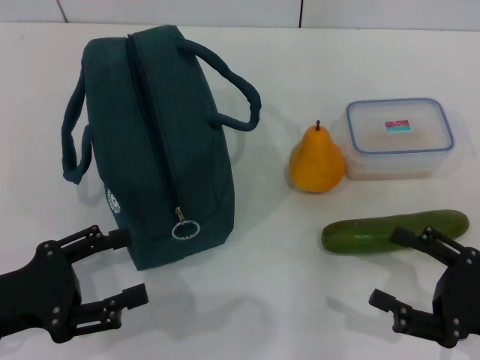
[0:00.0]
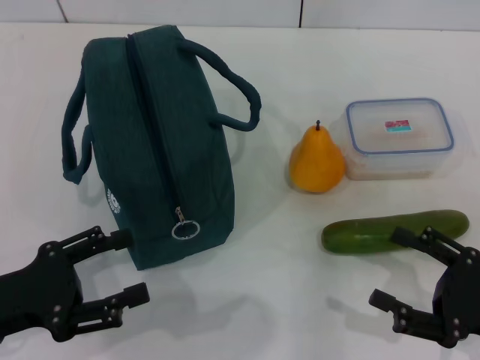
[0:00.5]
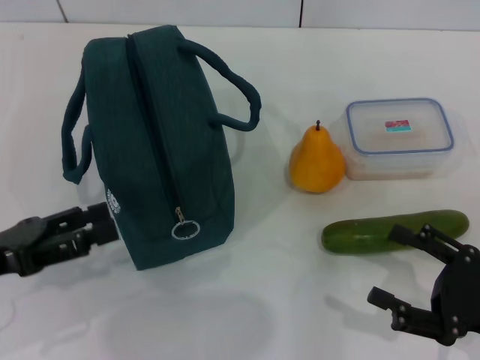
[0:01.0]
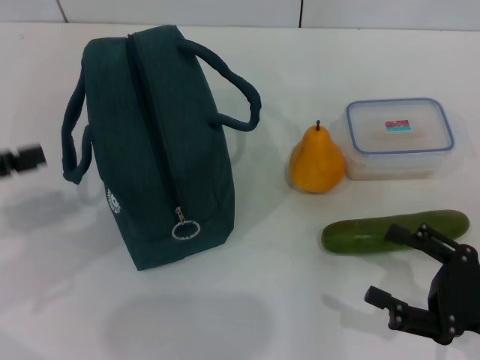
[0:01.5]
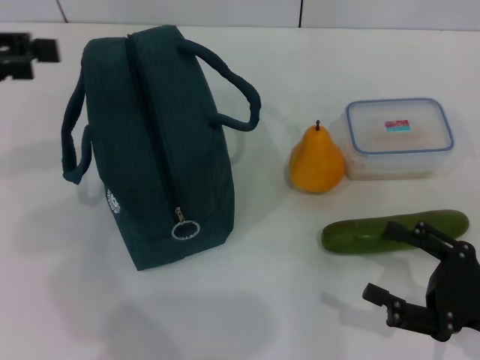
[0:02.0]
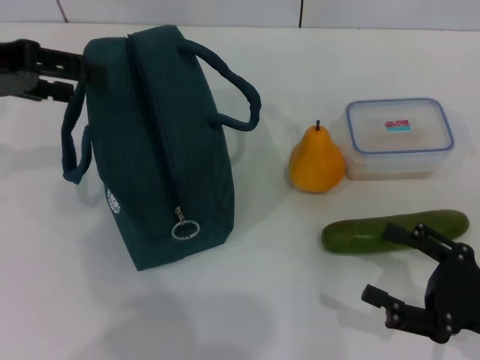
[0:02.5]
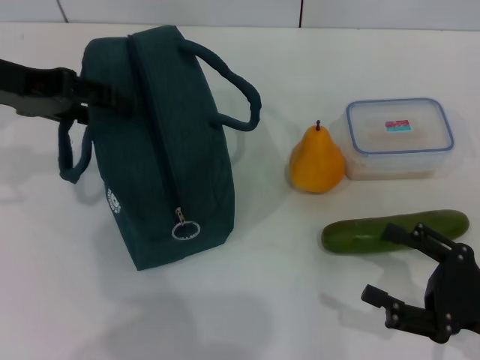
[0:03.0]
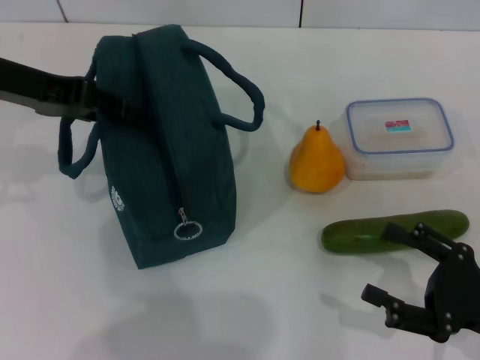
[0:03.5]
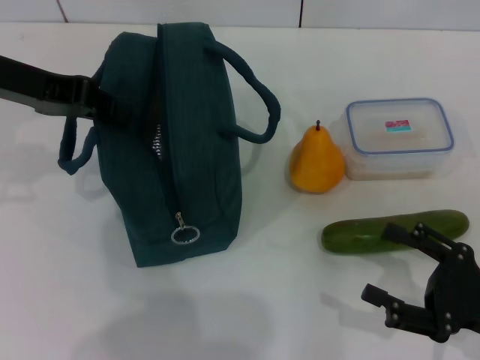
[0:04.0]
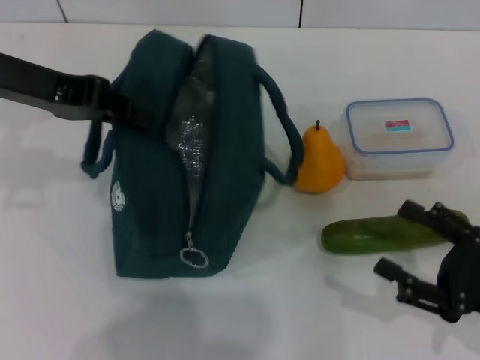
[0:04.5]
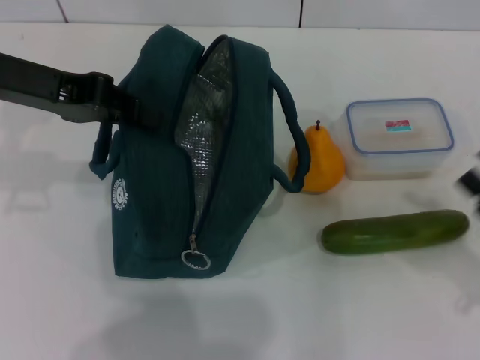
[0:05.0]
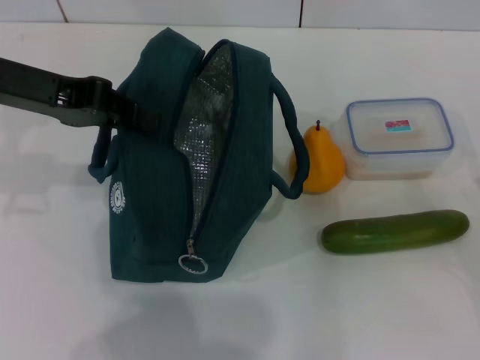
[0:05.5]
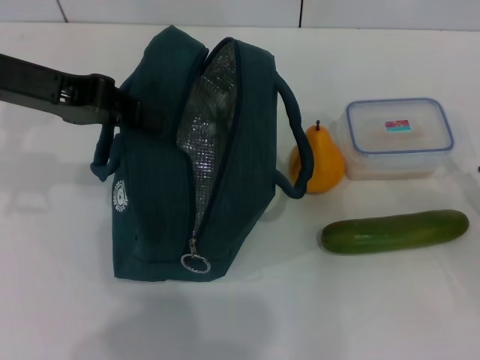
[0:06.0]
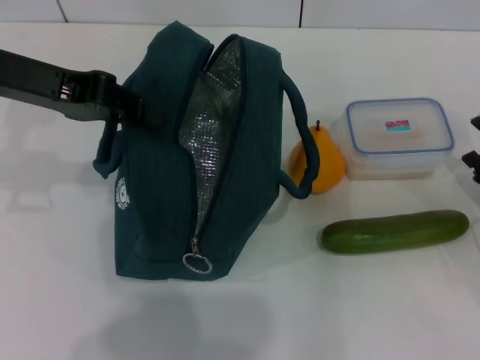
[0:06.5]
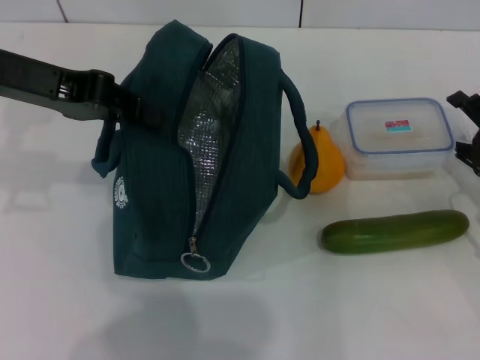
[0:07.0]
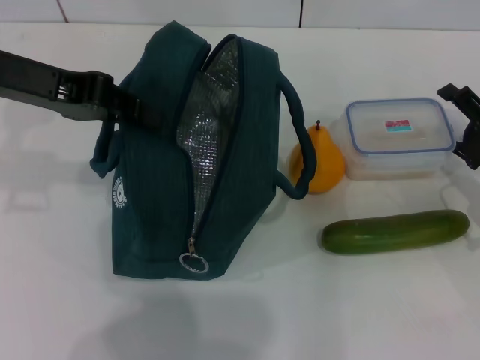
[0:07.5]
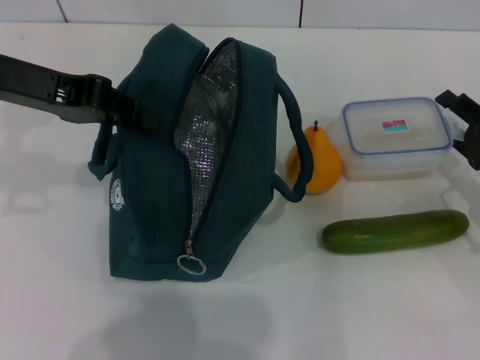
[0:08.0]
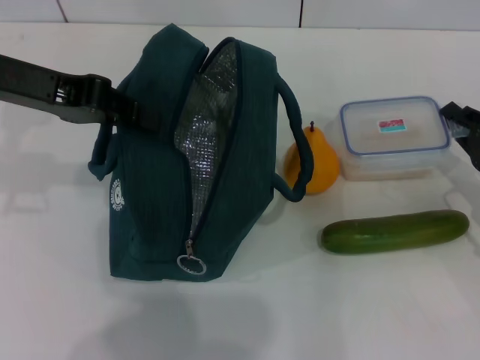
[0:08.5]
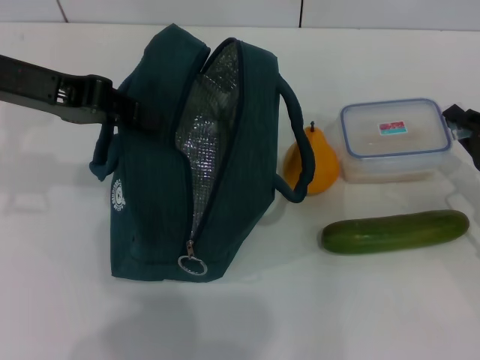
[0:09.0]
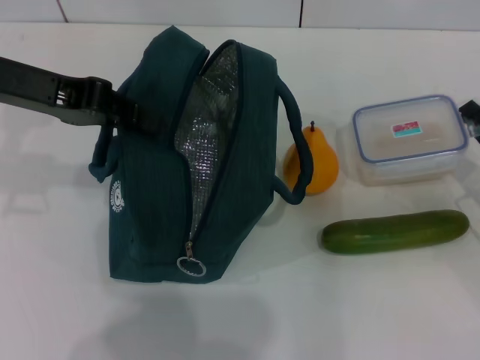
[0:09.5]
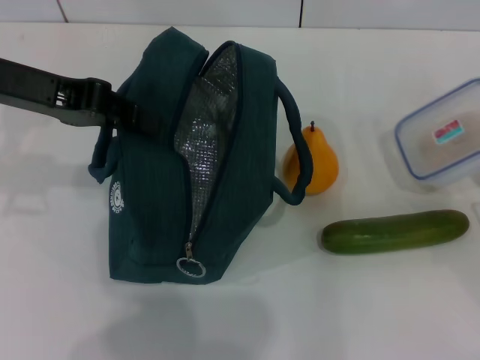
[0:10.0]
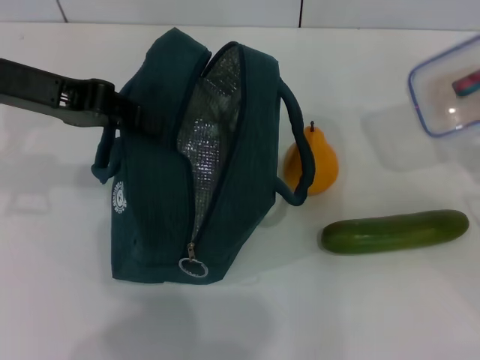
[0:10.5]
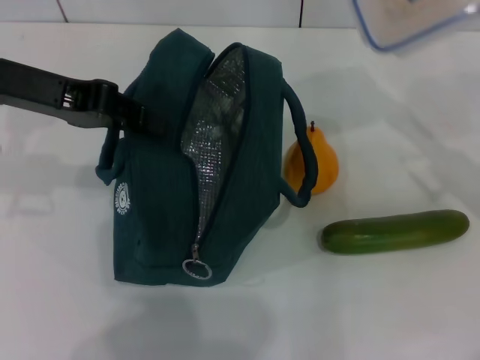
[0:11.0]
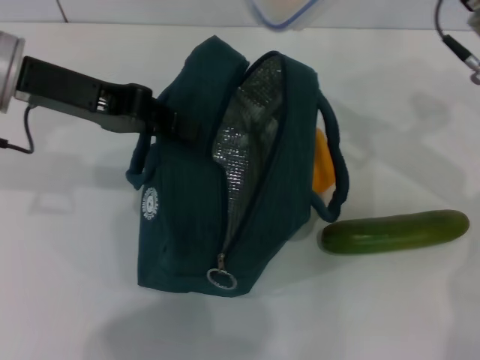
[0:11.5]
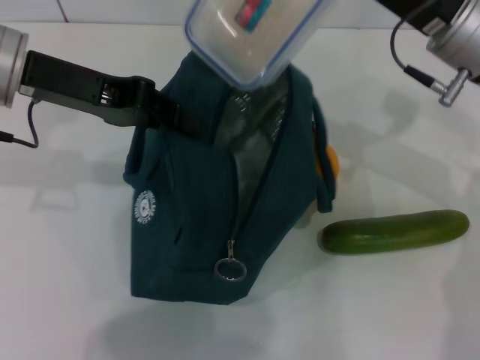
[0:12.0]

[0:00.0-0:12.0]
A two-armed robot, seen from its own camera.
Step, 0:00.0 to 0:04.5: Hold the lunch bag with your left hand.
Step, 0:05.0 to 0:09.0: Pick up the lunch box with your right hand.
0:00.0 to 0:02.0: The left gripper goes some 20 cm upward and forward.
0:02.0 to 0:04.0: The left gripper is displaced to the right and forward by roughly 10 cm, and closes up.
0:04.0 to 0:06.0: The right gripper goes some 5 cm forward and to the right.
0:06.0 to 0:08.0: The right gripper heads forward, covering roughly 5 cm.
0:08.0 to 0:10.0: The right gripper closes its fingers.
0:10.0 to 0:12.0: The right gripper moves to the left, upward and forward, approximately 25 cm.

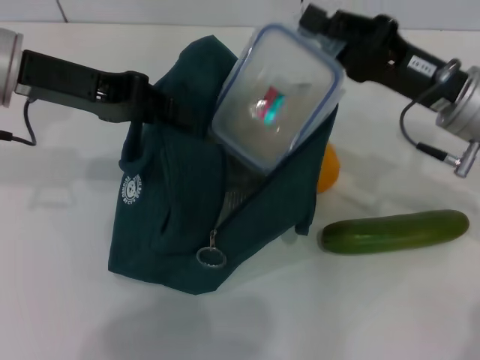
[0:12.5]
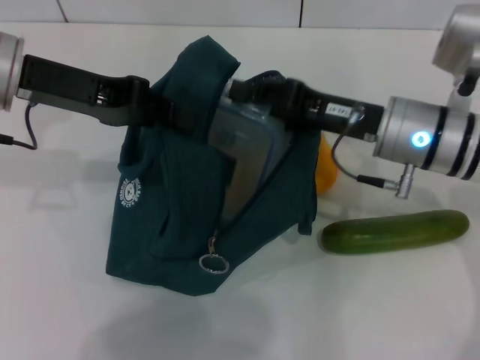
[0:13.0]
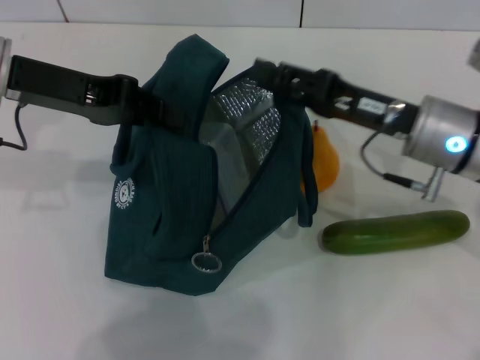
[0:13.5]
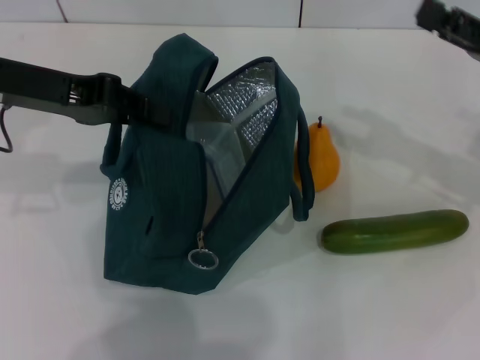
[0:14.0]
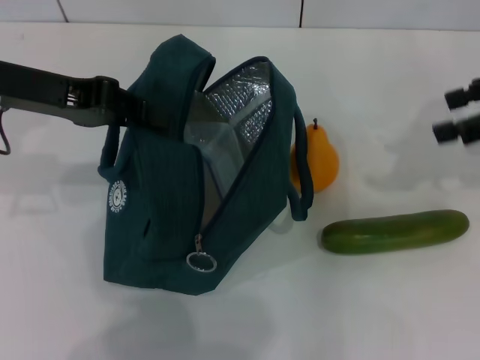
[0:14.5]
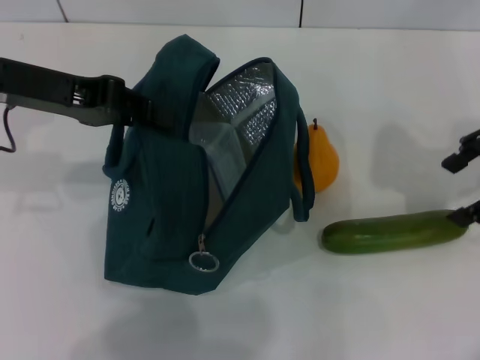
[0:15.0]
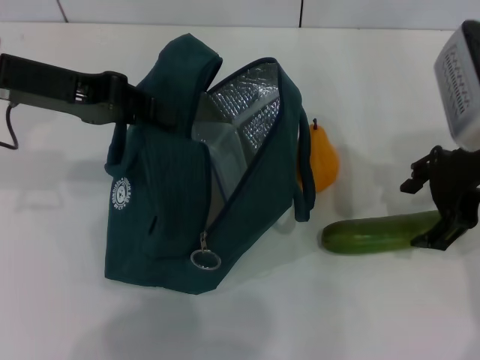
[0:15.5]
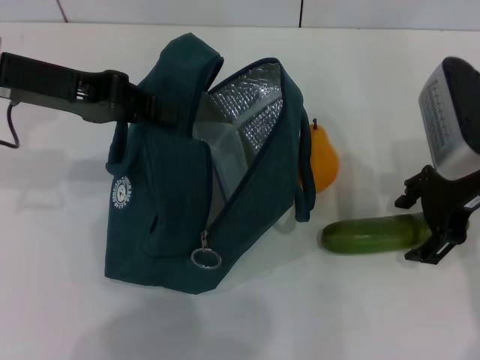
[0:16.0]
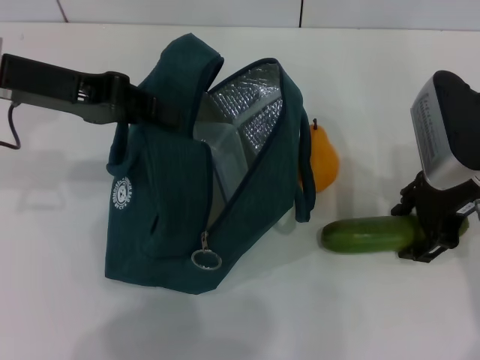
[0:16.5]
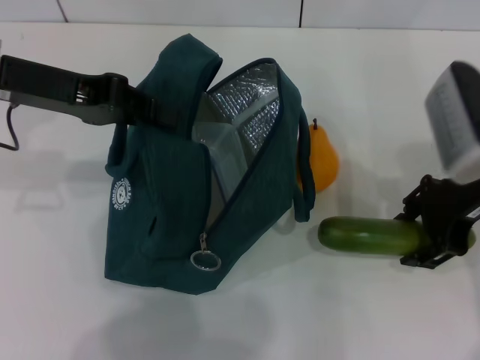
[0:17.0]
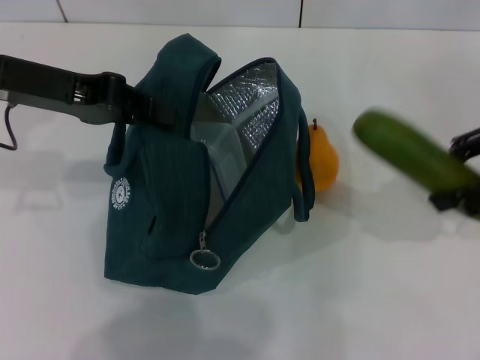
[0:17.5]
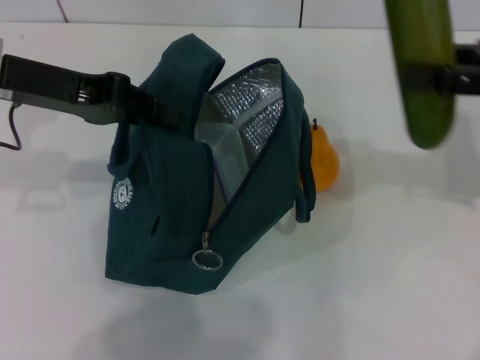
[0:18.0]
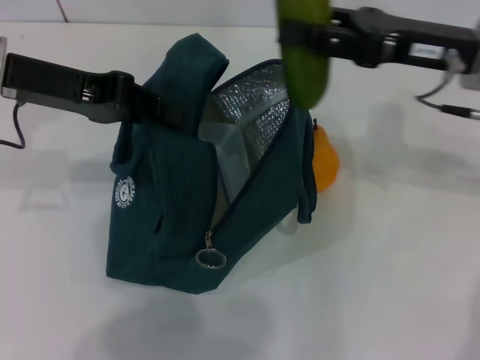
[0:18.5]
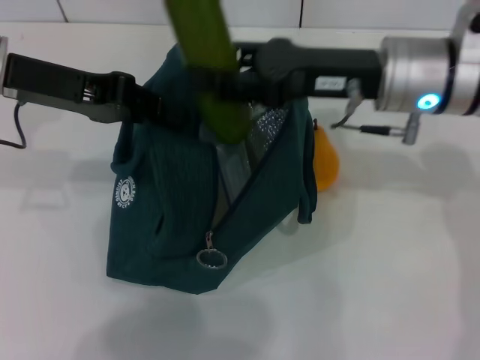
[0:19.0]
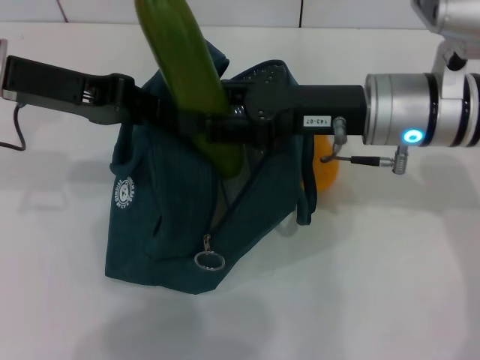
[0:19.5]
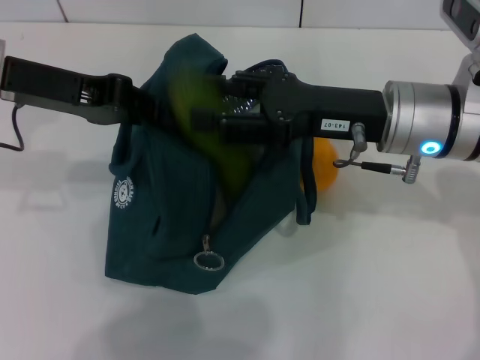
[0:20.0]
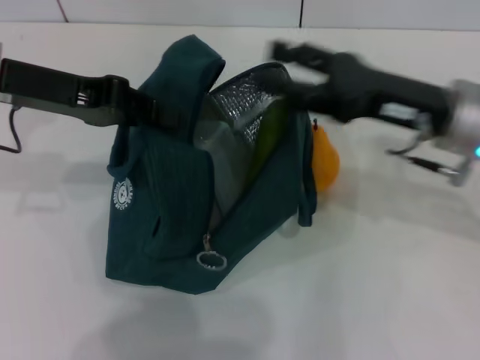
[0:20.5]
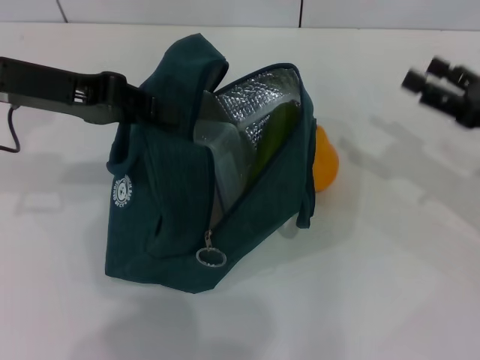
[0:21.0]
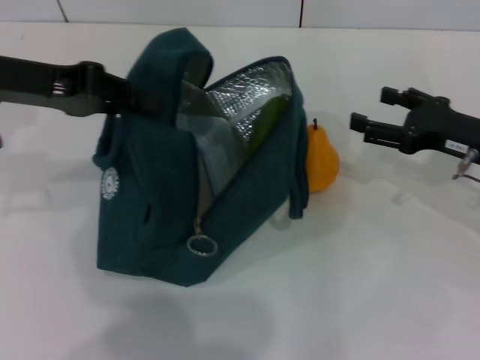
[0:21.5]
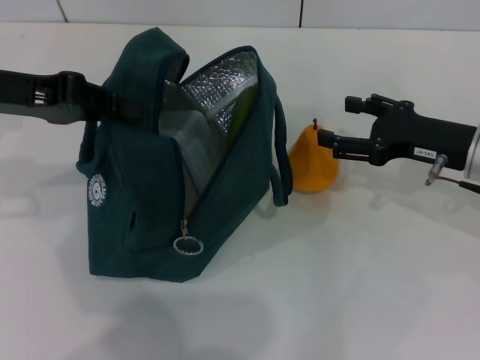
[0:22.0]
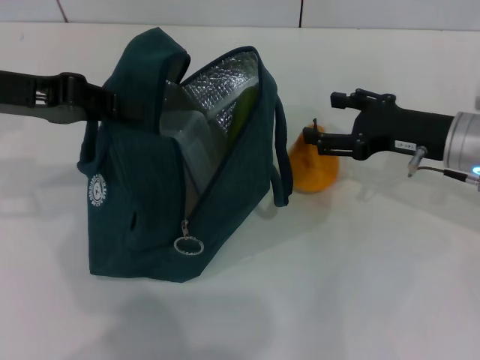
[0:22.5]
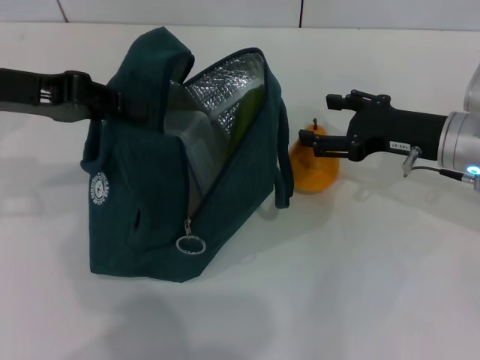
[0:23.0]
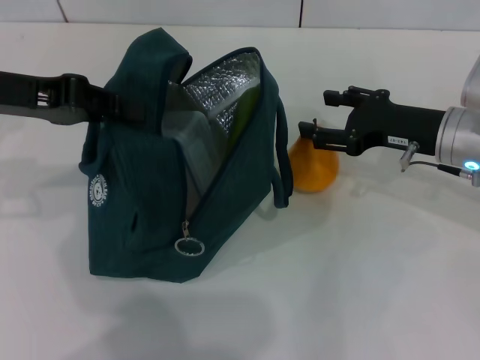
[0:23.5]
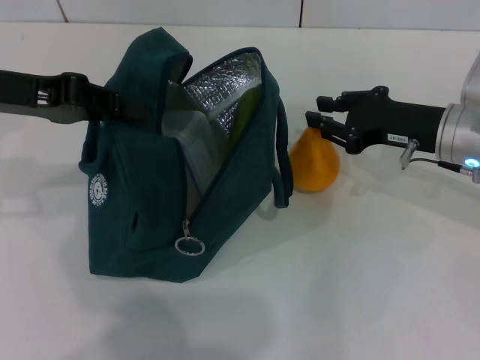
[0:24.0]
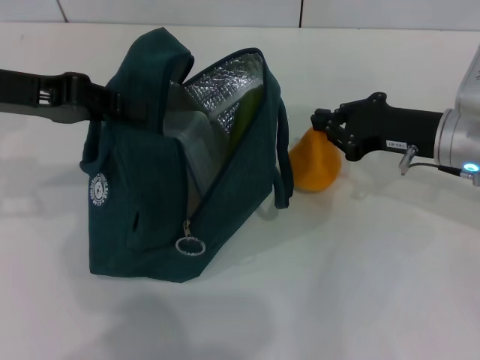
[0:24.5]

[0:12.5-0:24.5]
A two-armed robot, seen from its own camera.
Step, 0:13.5 to 0:16.5: Pick up the cucumber with your right hand.
Step, 0:17.0 to 0:20.5: Put the cucumber into the lunch bag with your right hand.
Step, 0:21.0 to 0:24.0: Grab the pear with your right hand.
0:12.5 to 0:14.5: The right gripper is displaced to the right and upward by approximately 15 cm, and opens.
0:14.5 to 0:16.5: The right gripper goes approximately 15 cm to the left and downward.
0:16.5 to 0:18.5: The right gripper moves approximately 10 cm to the right and comes back.
0:18.5 to 0:20.5: The right gripper moves approximately 10 cm to the left and comes back.
0:20.5 to 0:22.5: The right gripper moves downward, roughly 5 cm, and moves about 10 cm to the right and comes back.
0:22.5 to 0:24.5: The right gripper closes its fingers.

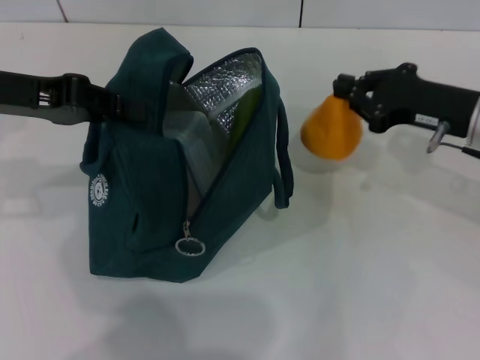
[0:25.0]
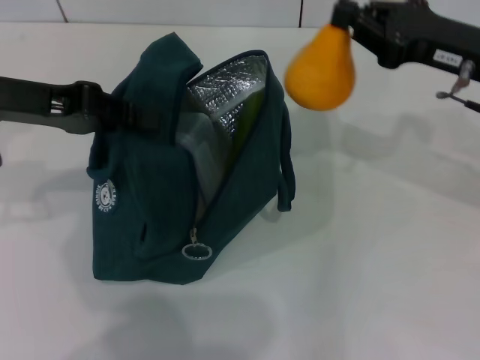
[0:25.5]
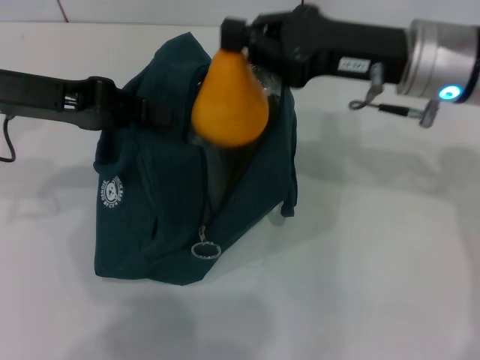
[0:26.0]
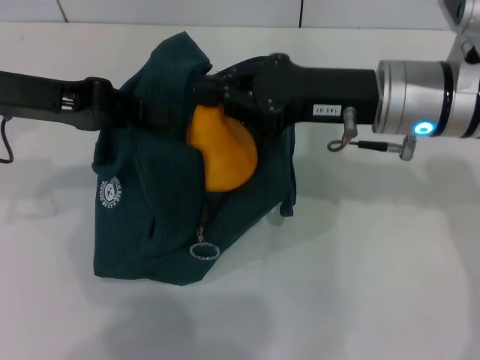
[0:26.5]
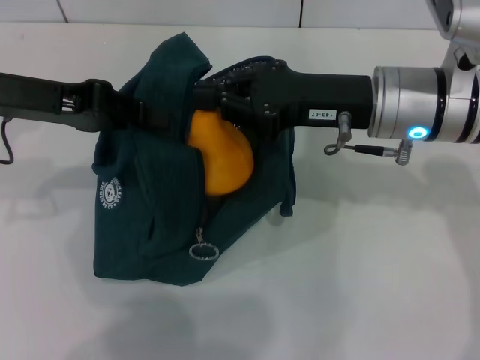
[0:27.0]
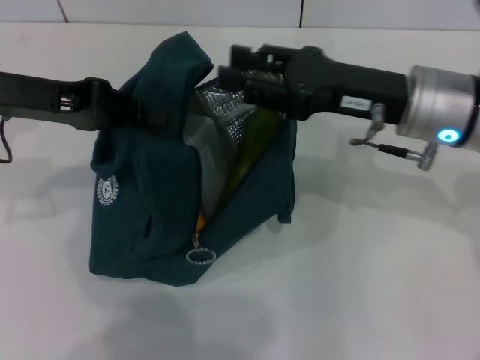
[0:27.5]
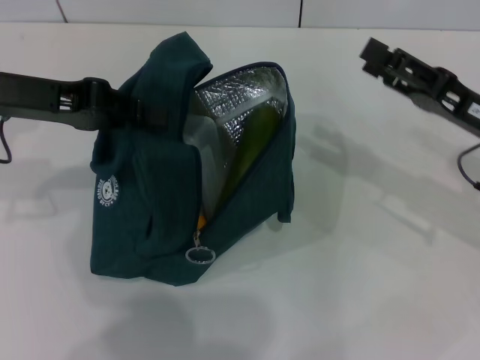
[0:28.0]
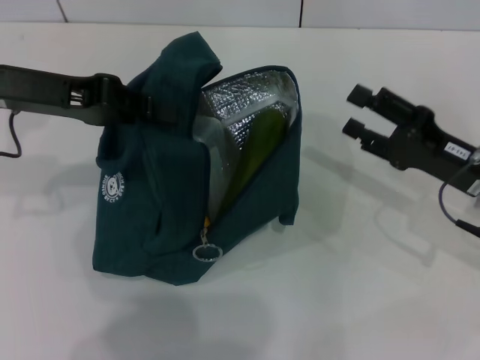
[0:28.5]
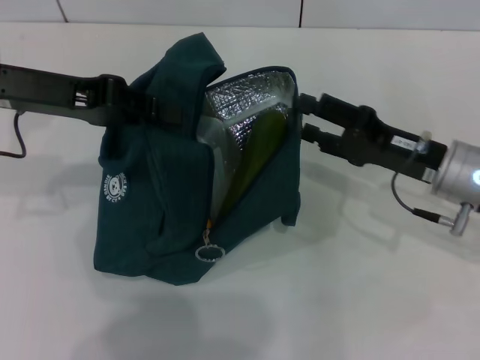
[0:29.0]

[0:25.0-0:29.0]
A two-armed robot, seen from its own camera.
0:25.0 to 0:27.0: The right gripper shifts roughly 10 cm to the left.
0:27.0 to 0:29.0: The right gripper goes about 10 cm downward and to the right, and opens up.
